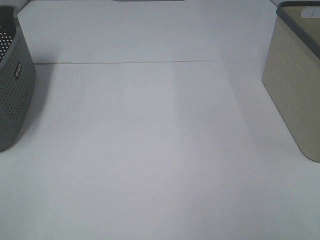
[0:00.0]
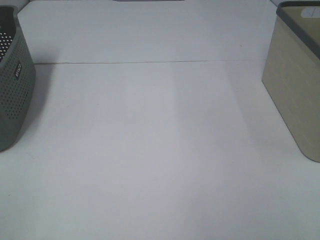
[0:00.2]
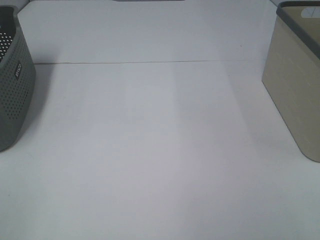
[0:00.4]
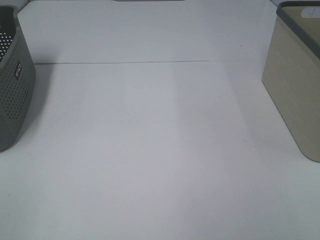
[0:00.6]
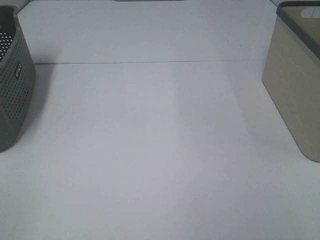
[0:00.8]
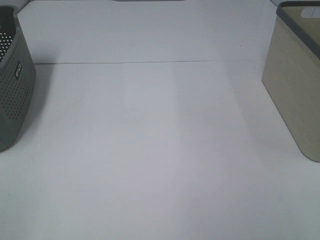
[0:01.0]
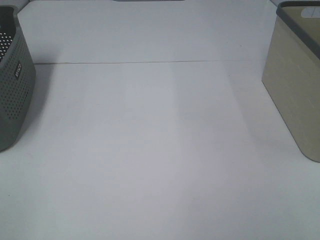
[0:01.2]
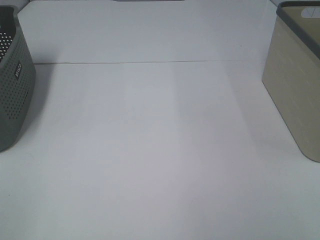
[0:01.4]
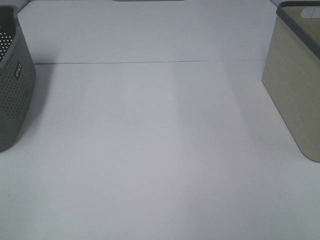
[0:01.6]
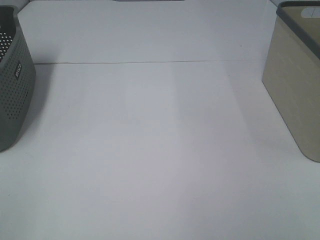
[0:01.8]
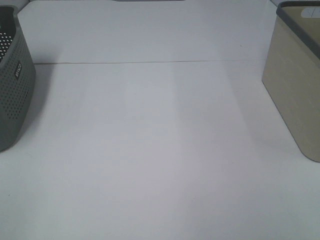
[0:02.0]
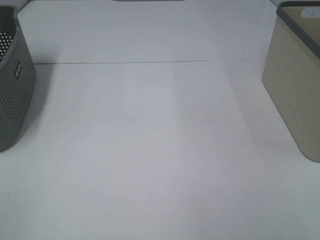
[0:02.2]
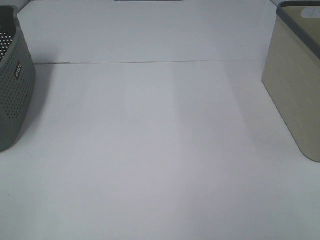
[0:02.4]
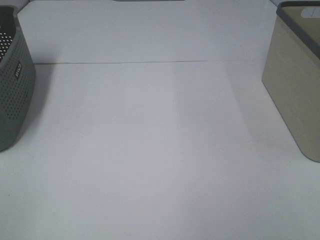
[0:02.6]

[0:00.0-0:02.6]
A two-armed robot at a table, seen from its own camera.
0:01.2 to 0:02.6: The two grippers keep their place.
